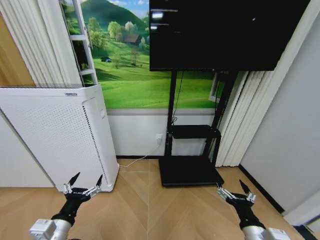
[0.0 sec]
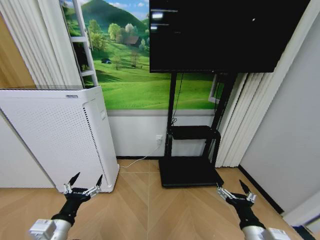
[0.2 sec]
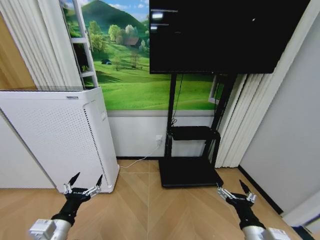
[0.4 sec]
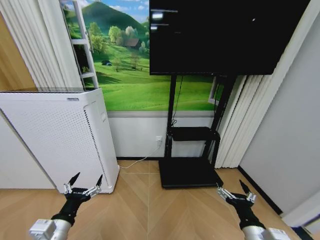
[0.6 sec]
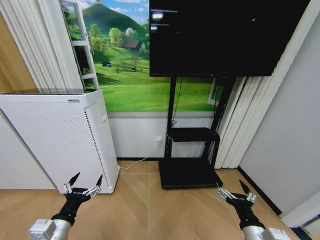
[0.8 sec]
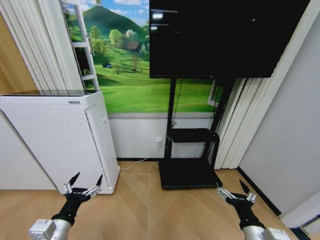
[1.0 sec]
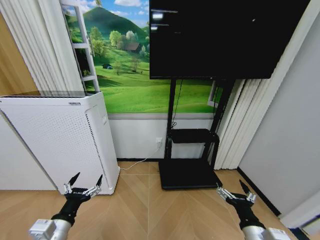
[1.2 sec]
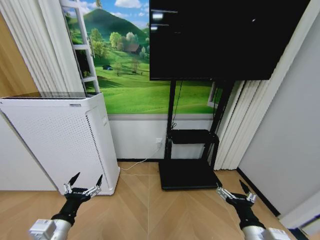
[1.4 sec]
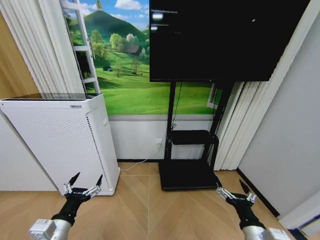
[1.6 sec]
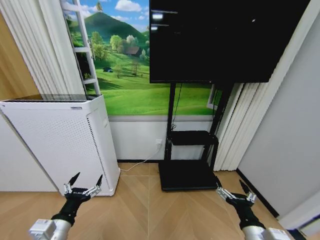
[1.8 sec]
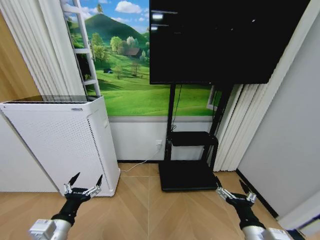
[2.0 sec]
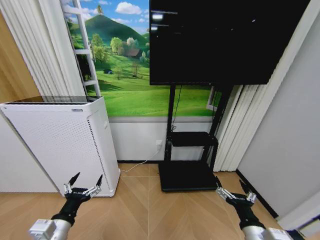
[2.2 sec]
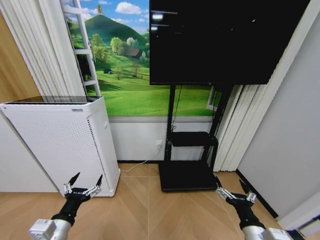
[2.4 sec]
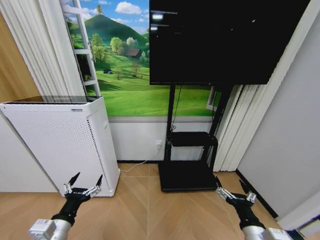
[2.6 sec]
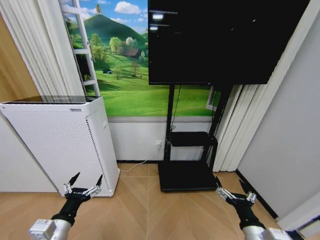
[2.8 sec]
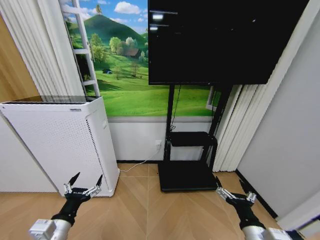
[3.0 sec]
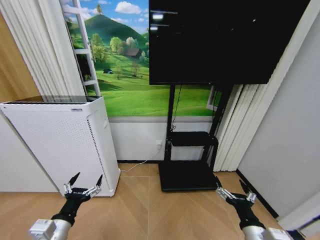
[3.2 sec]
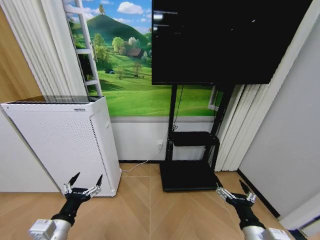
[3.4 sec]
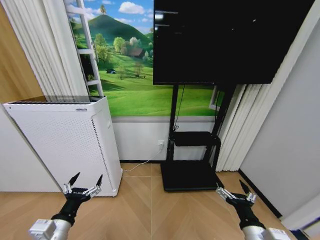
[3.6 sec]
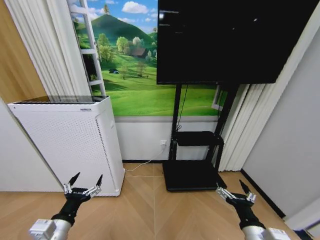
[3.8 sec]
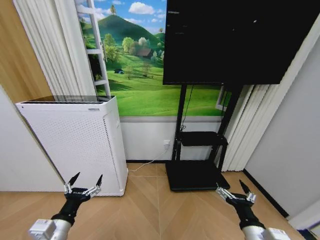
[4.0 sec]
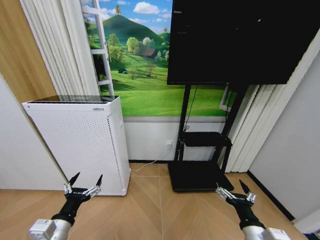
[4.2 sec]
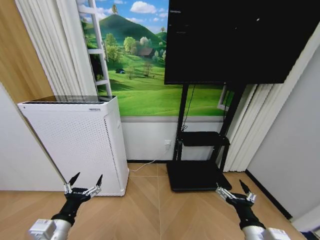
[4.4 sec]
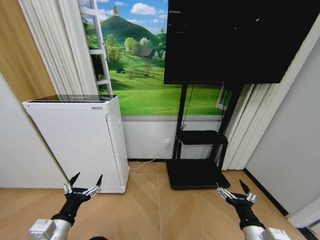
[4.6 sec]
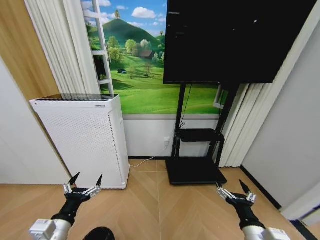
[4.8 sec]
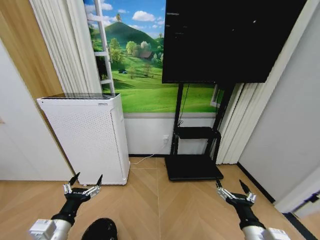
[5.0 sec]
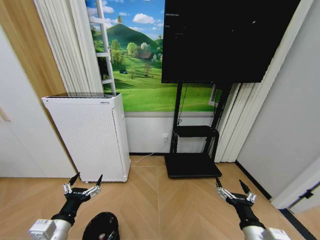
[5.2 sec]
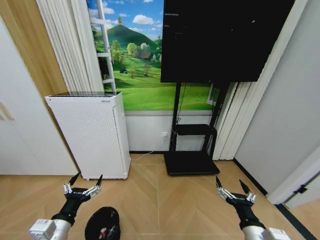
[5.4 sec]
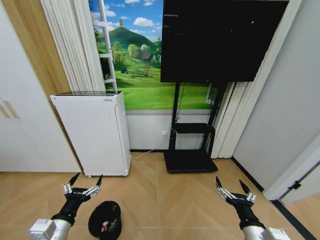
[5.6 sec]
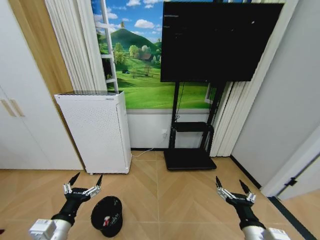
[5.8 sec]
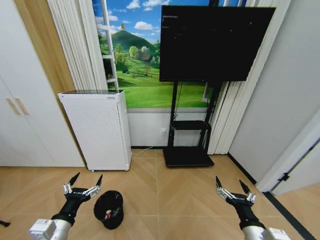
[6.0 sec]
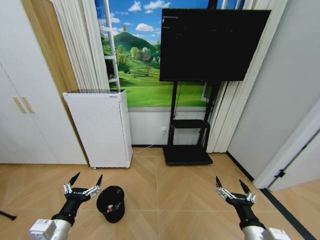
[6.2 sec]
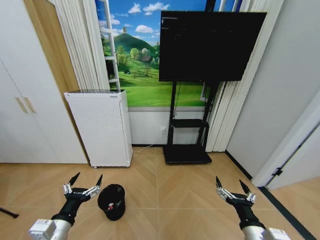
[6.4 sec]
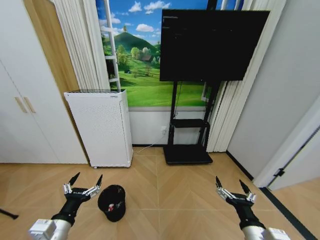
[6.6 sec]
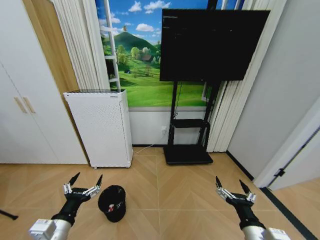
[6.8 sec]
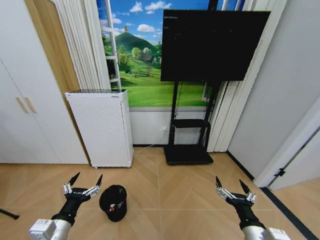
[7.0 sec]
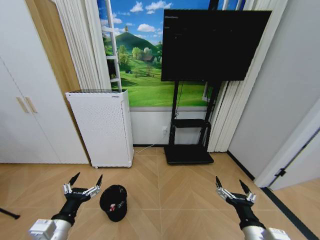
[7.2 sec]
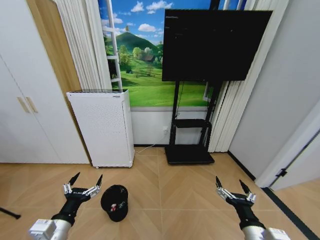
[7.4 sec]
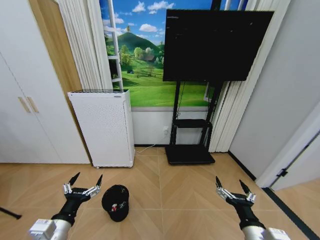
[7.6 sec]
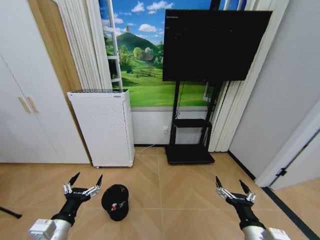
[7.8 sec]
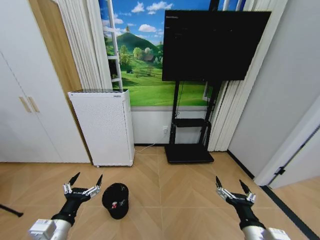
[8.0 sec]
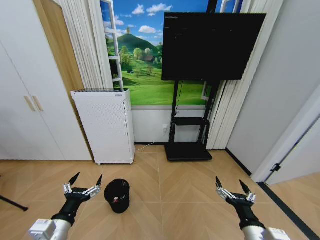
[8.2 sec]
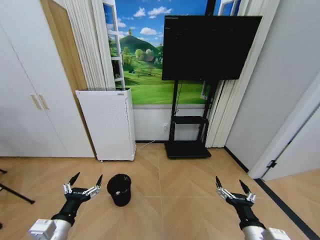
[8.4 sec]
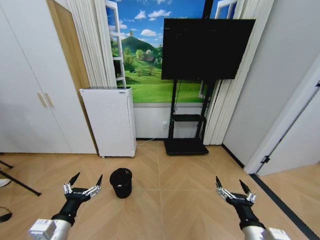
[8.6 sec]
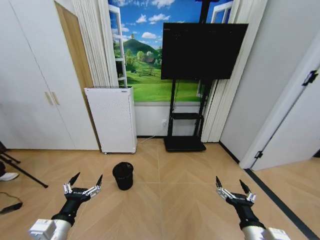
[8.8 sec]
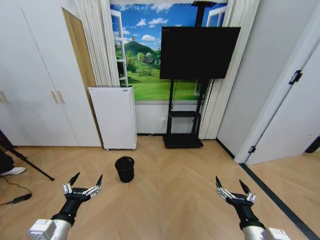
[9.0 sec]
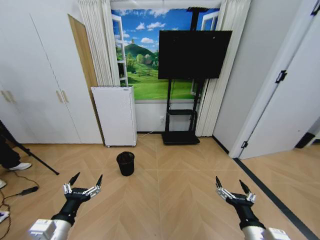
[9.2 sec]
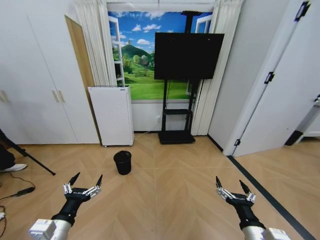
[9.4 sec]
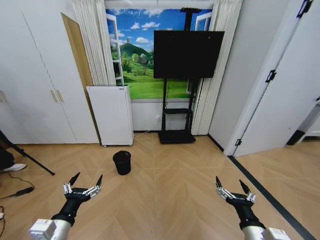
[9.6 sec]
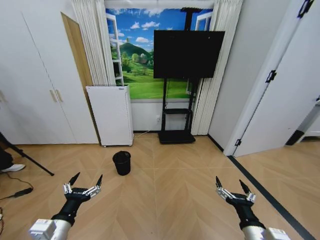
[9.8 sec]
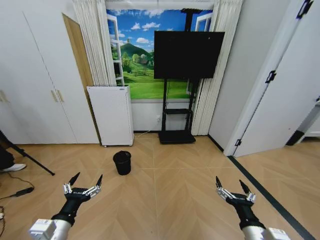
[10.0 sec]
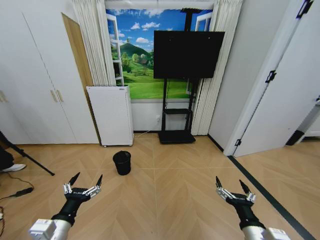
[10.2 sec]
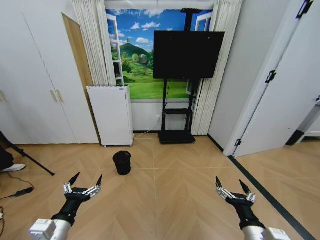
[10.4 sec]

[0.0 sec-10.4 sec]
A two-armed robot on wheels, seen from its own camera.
Task of the whole recording: Pick up the trash bin and place the garbage on the floor into it.
0.0 sec to 3.0 sec: Neither gripper changes place.
6.0 sec to 7.4 sec: The two grippers keep their place.
